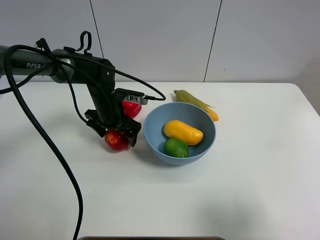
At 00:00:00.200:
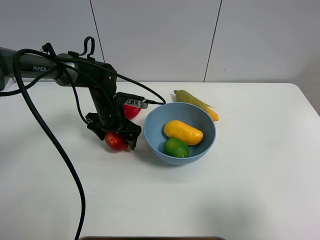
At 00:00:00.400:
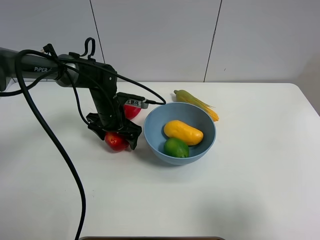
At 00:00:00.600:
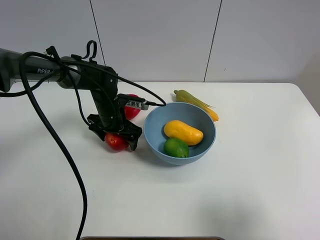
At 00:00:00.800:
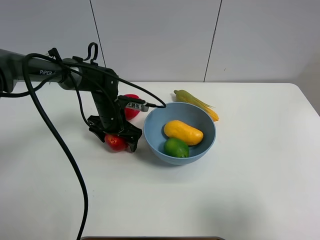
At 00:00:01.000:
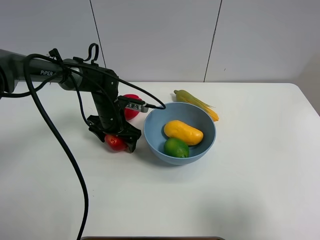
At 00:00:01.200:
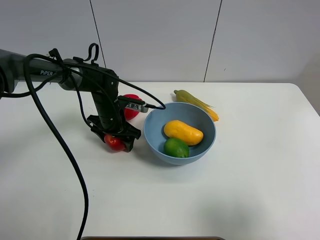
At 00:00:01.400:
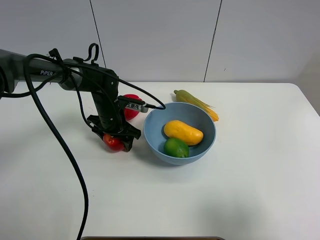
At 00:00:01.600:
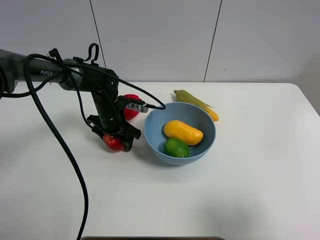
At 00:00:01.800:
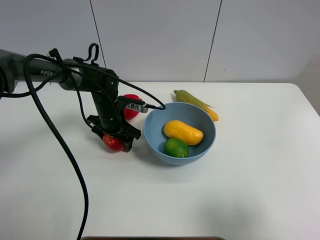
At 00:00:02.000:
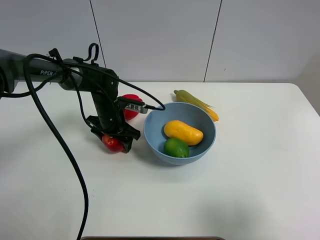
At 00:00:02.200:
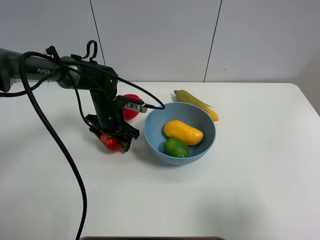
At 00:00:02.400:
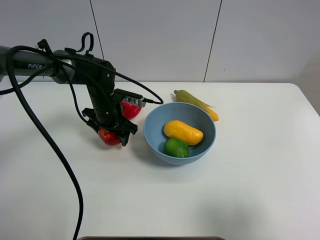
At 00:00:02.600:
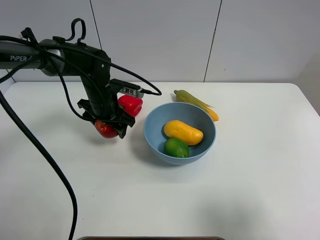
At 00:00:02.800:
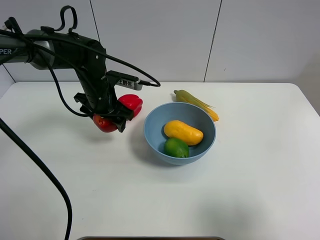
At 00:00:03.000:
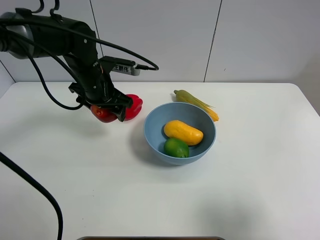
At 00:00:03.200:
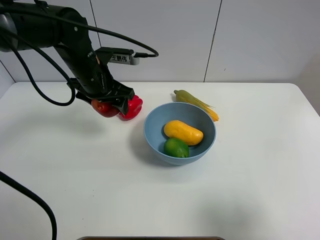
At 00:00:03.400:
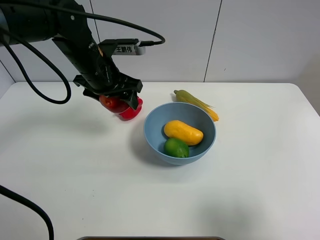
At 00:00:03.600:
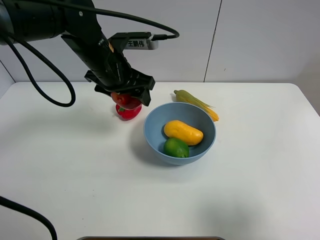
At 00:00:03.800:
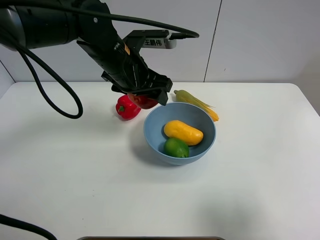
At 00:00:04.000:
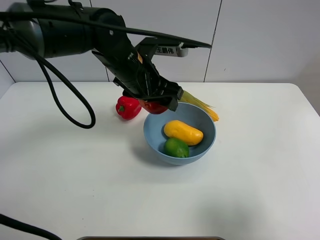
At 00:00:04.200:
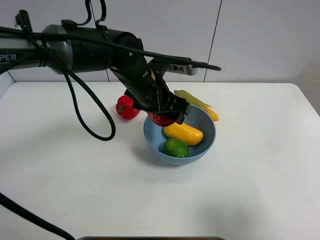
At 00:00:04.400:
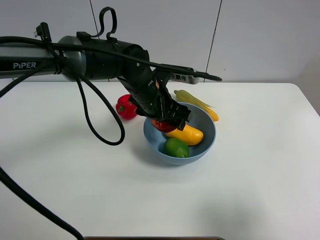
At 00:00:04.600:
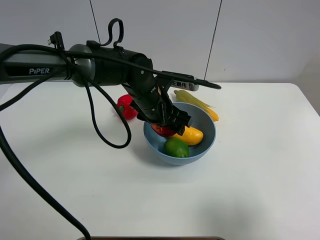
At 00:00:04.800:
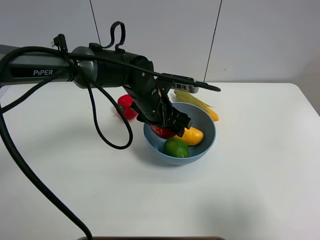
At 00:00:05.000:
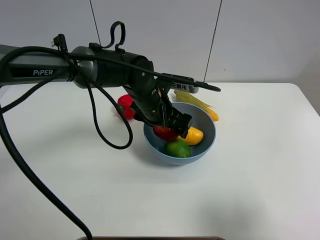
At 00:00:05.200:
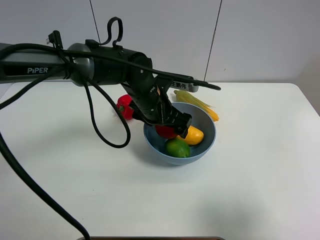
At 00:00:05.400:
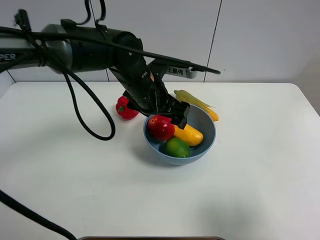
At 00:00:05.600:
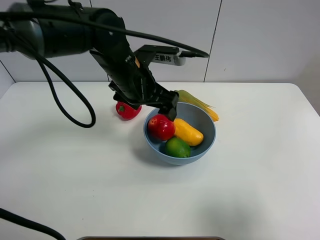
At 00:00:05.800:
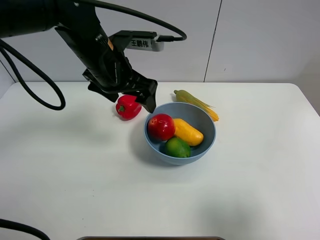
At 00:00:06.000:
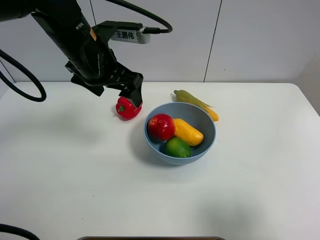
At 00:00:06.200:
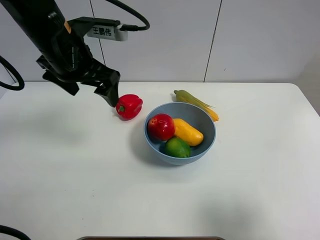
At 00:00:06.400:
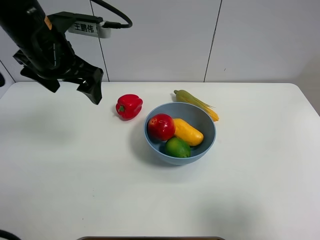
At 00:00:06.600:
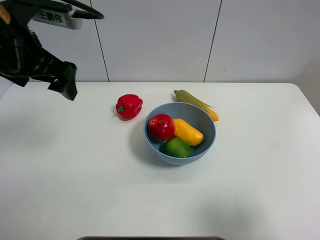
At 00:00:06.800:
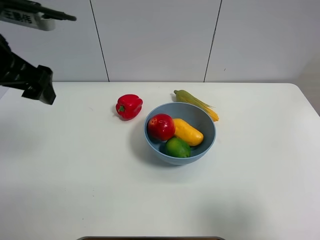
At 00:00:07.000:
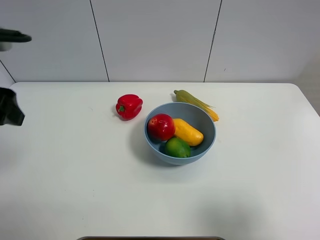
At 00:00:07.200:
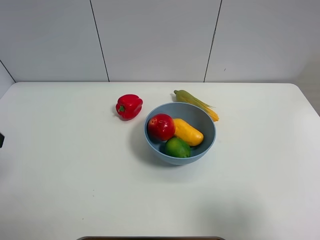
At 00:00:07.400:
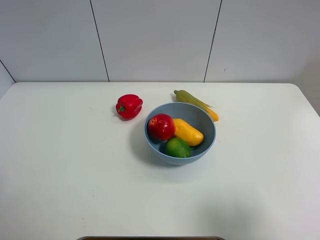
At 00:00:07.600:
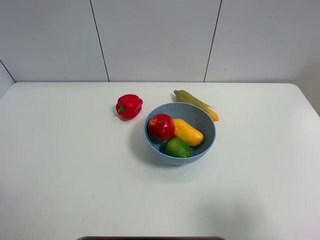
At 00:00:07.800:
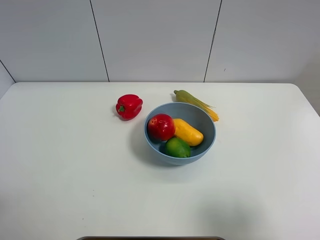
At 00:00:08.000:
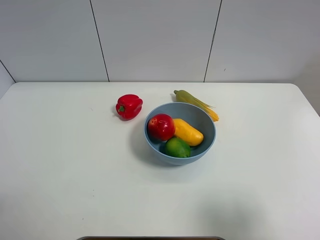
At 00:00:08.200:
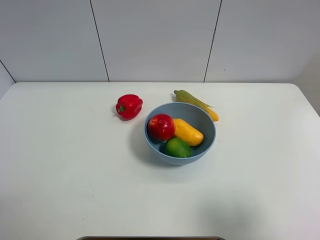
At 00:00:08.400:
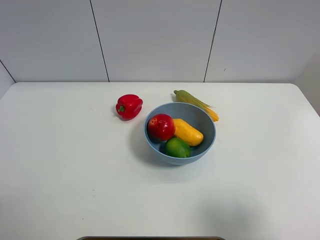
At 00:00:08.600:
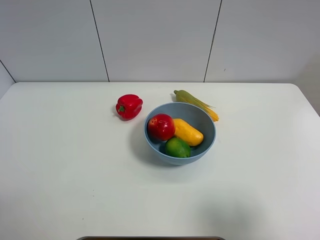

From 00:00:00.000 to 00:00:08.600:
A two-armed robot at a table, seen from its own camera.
Task of the whole recording: Put the three fruits on the table into a bowl.
Step, from 00:00:01.400 to 00:00:05.400: Place the pomegranate in the blue bowl with left gripper.
From 00:00:00.000 to 00:00:01.400: The left gripper closes.
From 00:00:01.400 to 00:00:02.800: The left gripper moves upward, about 10 cm.
From 00:00:02.800 to 00:00:04.400: The left gripper shifts about 10 cm to the right.
From 00:00:04.400 to 00:00:05.800: The left gripper shifts approximately 15 cm upward and to the left, and opens.
From 00:00:05.800 to 00:00:07.200: The left gripper heads to the left and backward, covering approximately 25 cm.
